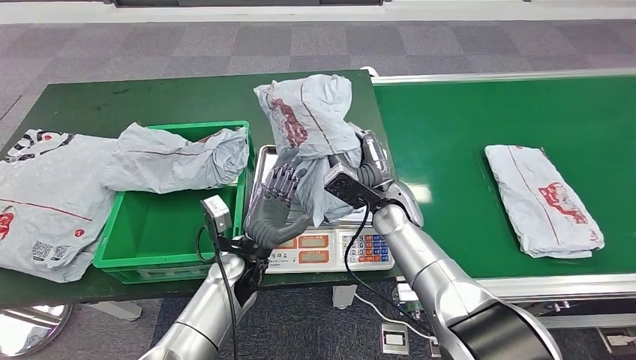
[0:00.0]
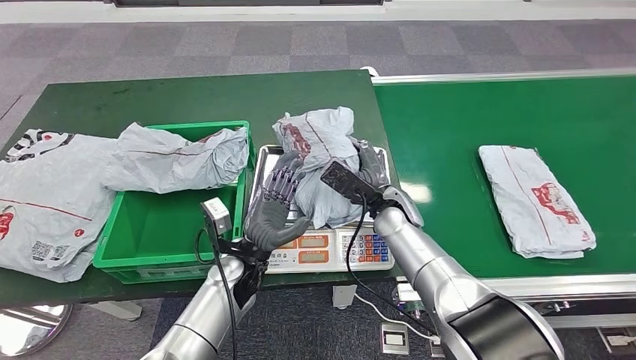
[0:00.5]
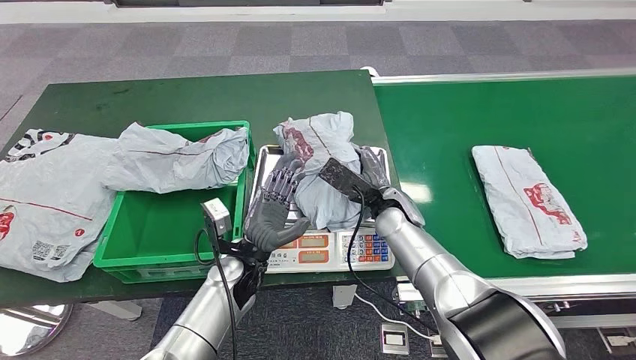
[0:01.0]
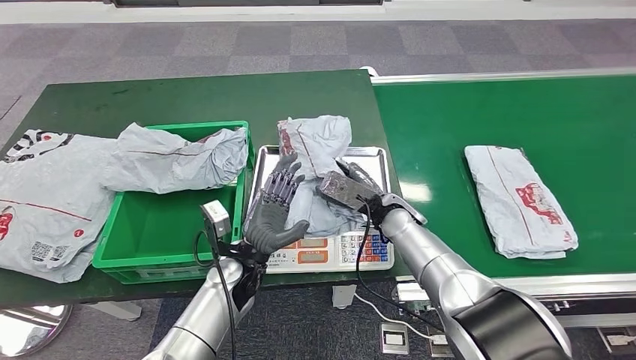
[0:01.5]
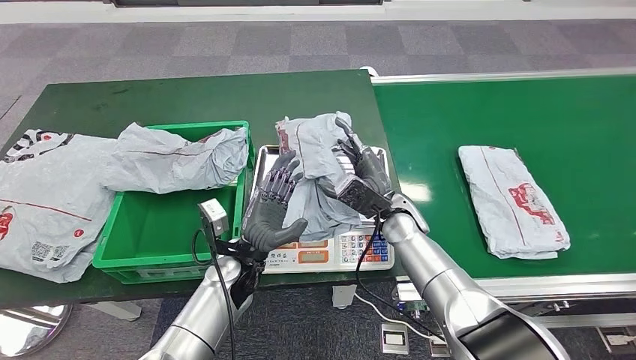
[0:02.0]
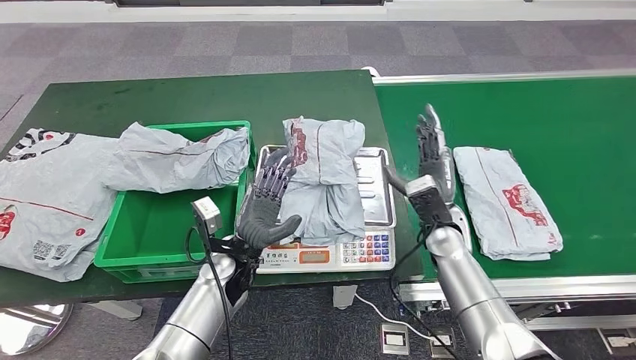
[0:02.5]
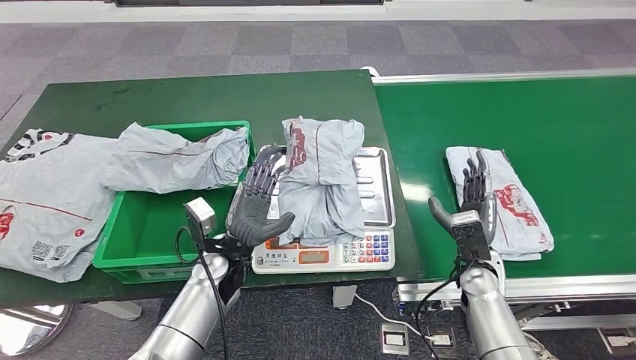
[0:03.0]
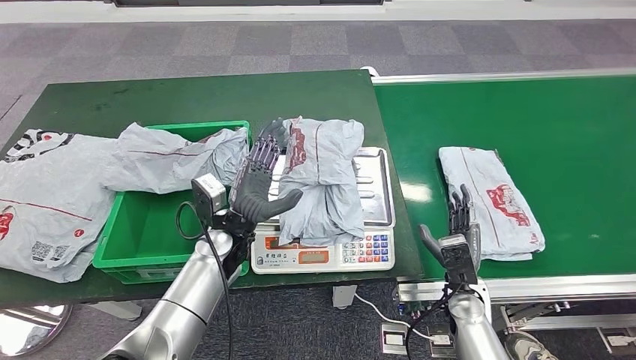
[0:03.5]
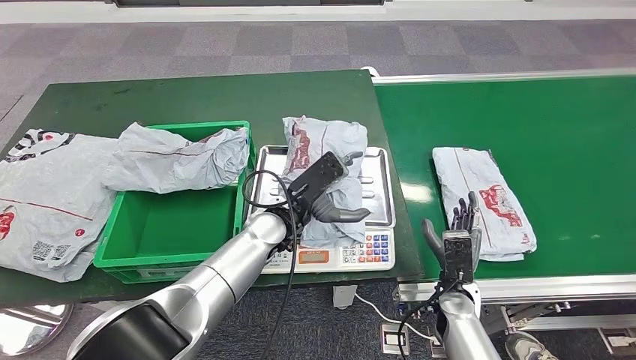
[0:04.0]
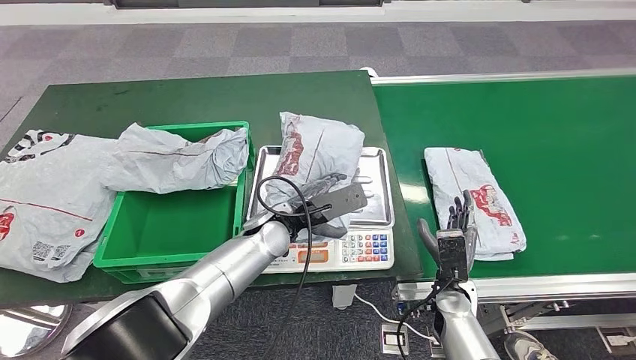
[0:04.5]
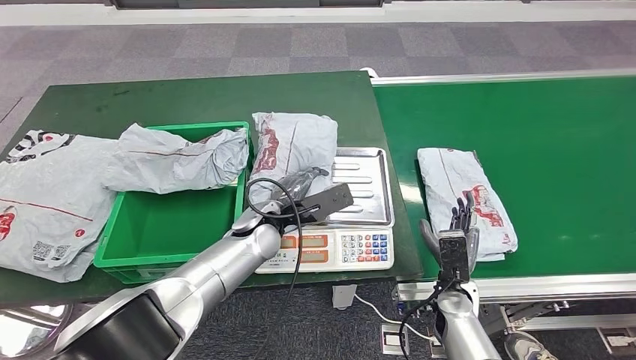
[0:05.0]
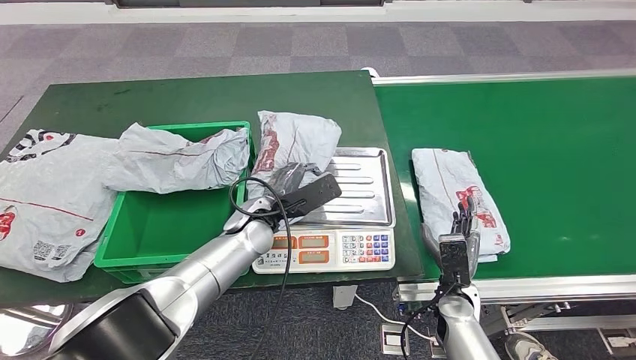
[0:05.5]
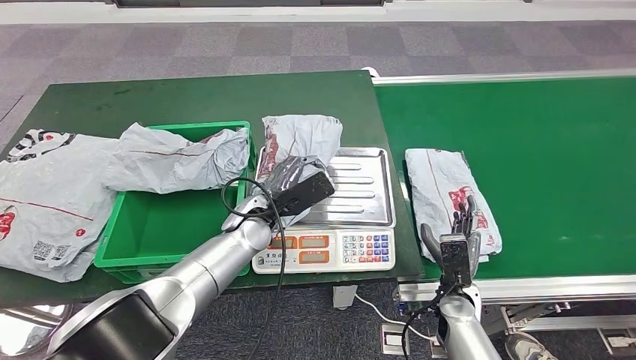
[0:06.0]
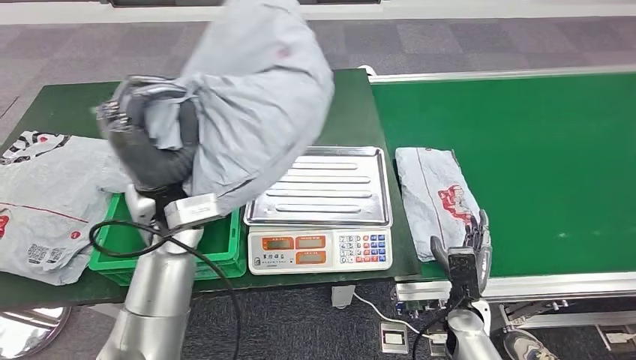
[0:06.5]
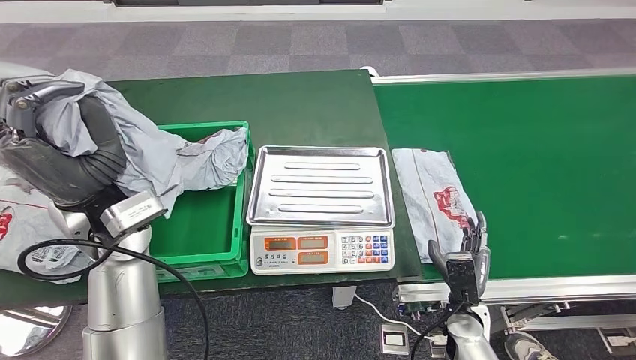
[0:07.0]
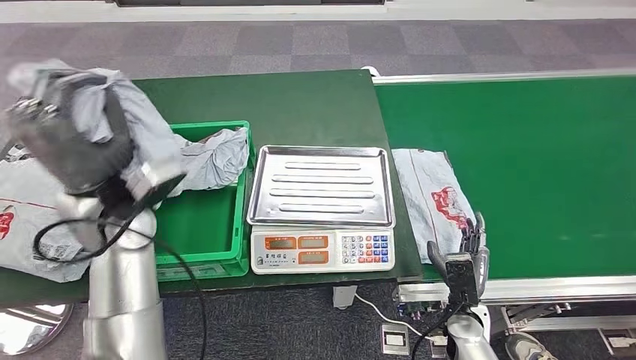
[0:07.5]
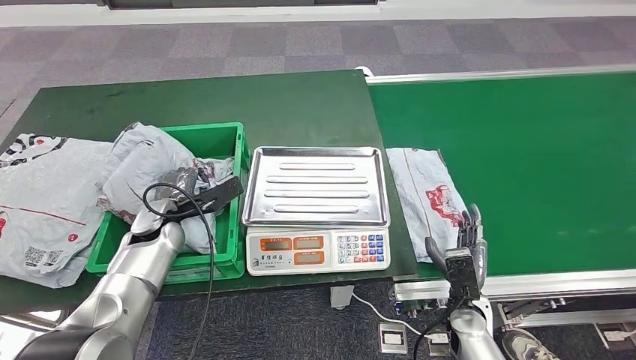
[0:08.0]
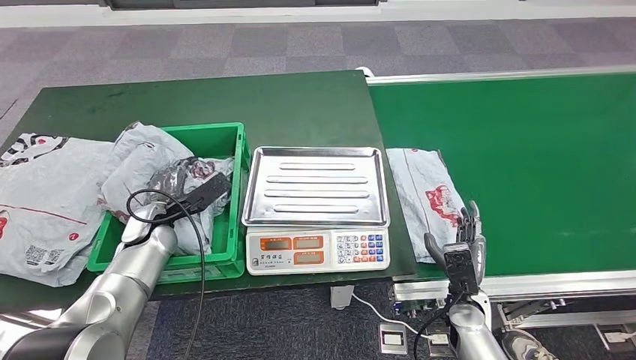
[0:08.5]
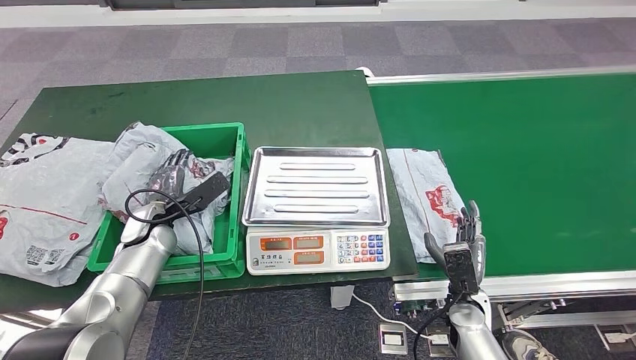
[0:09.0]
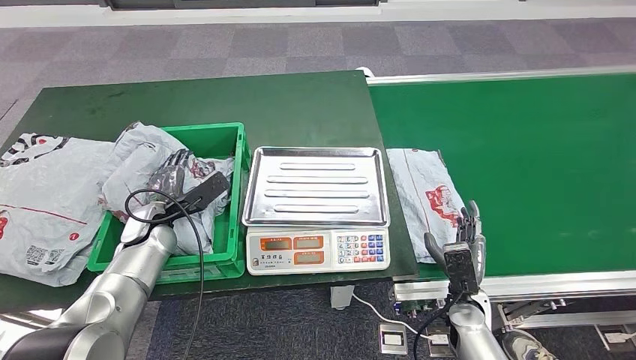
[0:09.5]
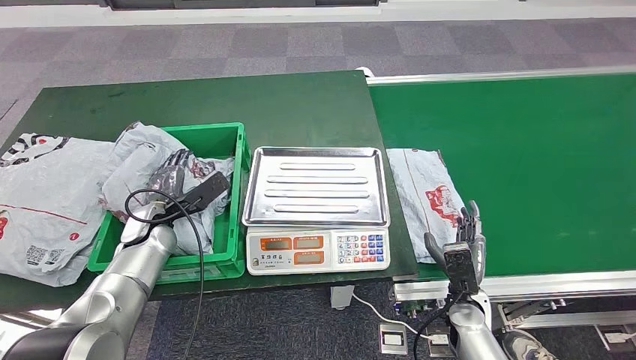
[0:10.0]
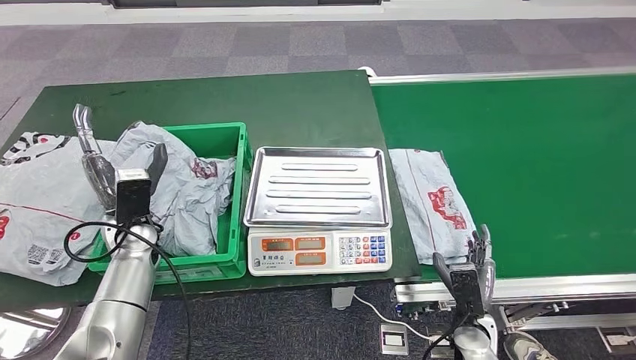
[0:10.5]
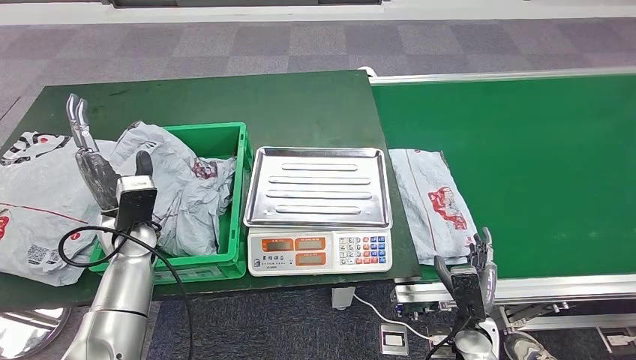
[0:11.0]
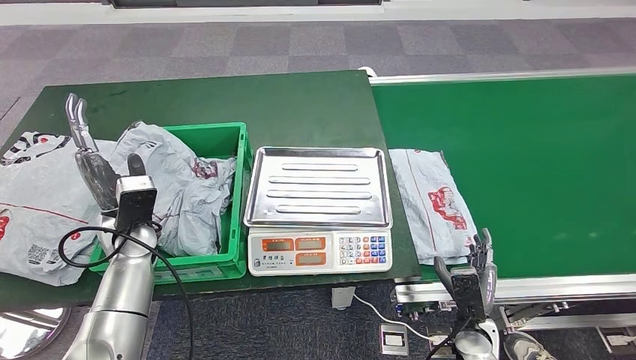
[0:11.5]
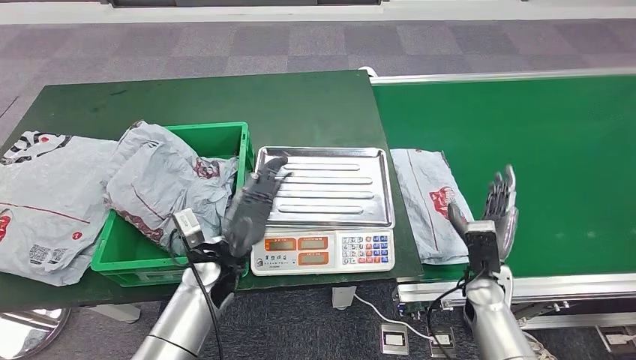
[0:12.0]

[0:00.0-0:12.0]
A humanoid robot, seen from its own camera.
Step, 0:00.0 to 0:03.0: Place the parcel onto the inbound machine.
Step, 0:03.5 to 0:07.5: Pick up the parcel from the inbound machine.
Step, 0:08.0 to 0:10.0: Place the parcel into the delivery box.
0:04.0 to 0:06.0: The left hand ends up approximately 5 cm from where it was.
0:08.0 to 0:10.0: The hands stay close to where they were, moving slightly.

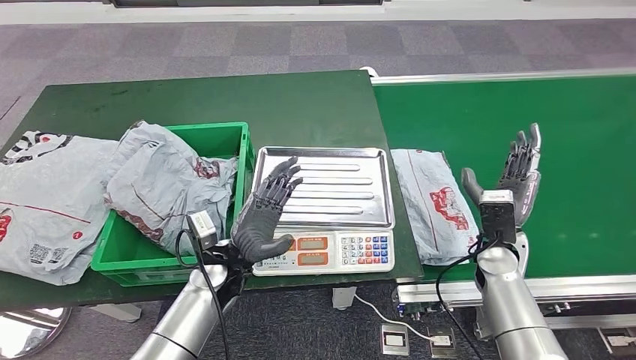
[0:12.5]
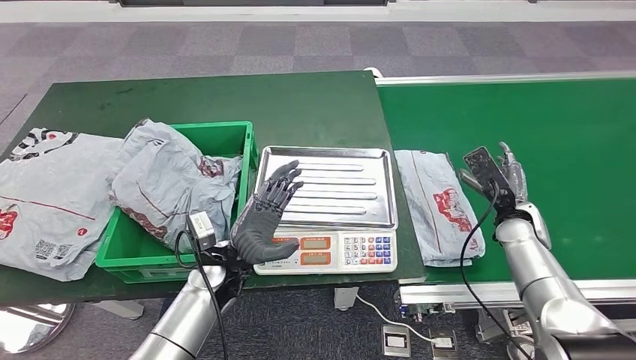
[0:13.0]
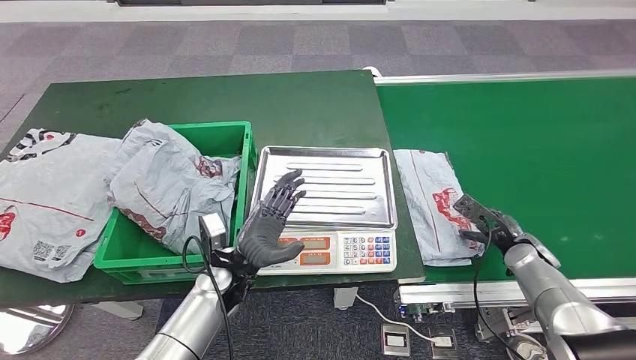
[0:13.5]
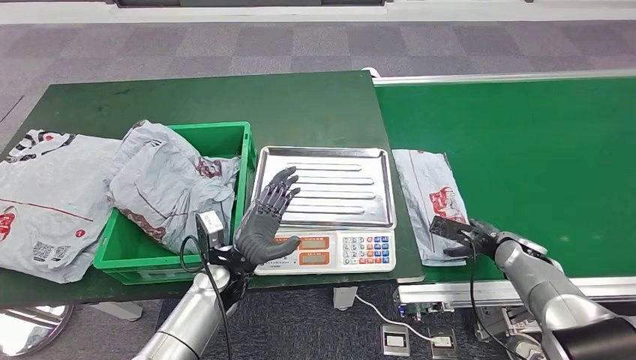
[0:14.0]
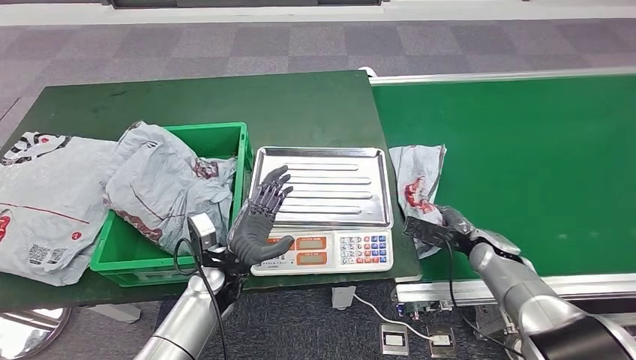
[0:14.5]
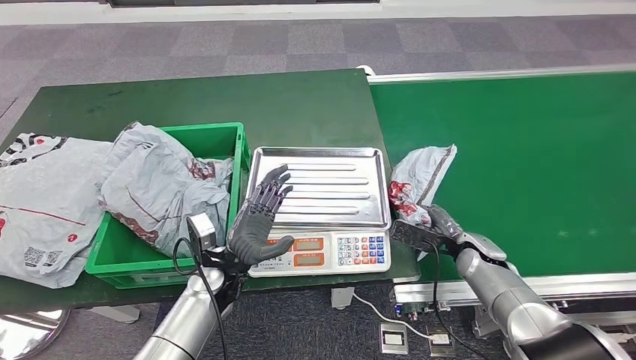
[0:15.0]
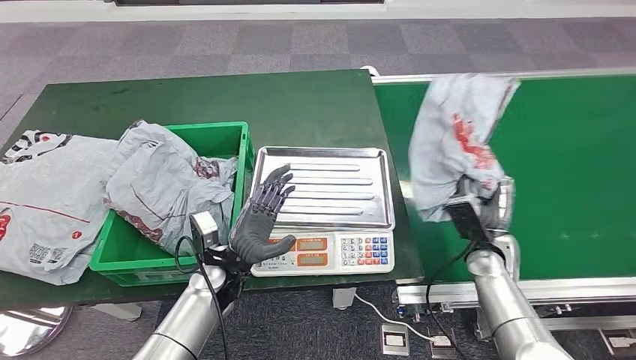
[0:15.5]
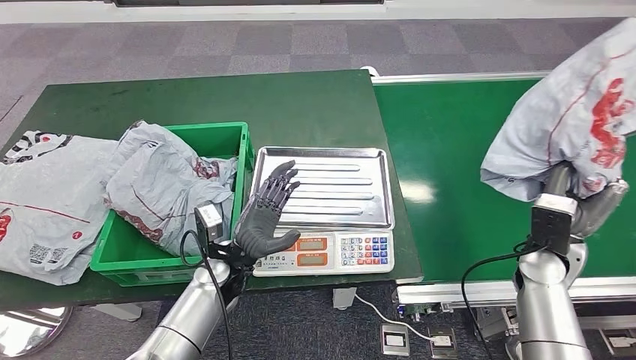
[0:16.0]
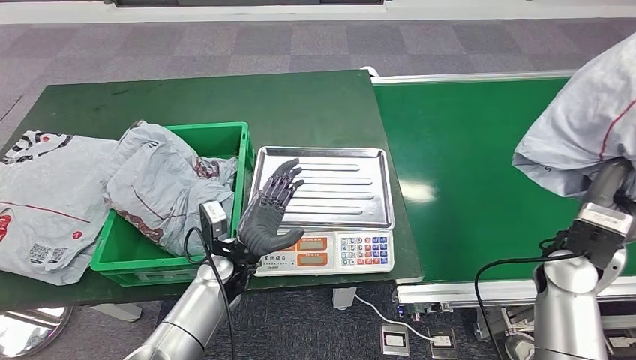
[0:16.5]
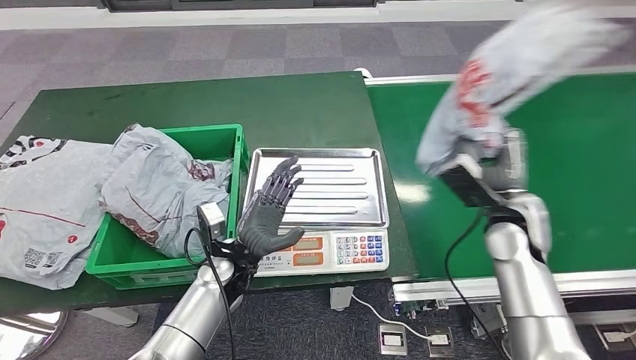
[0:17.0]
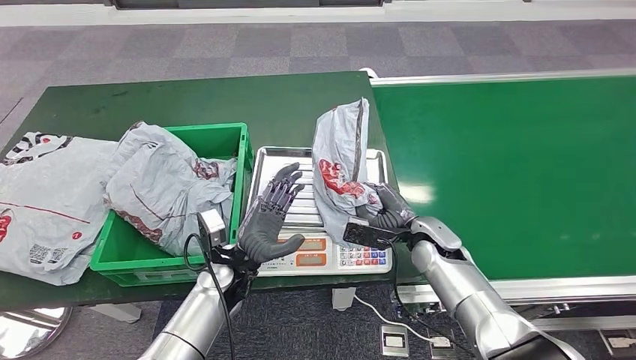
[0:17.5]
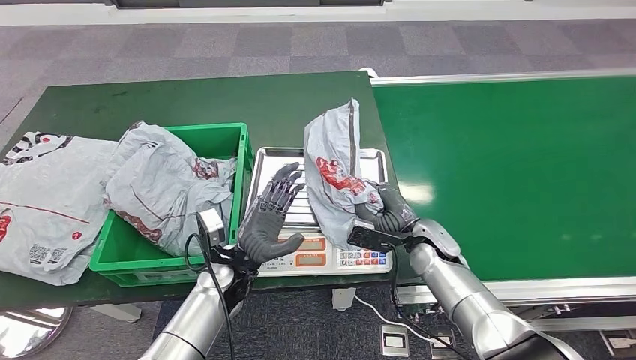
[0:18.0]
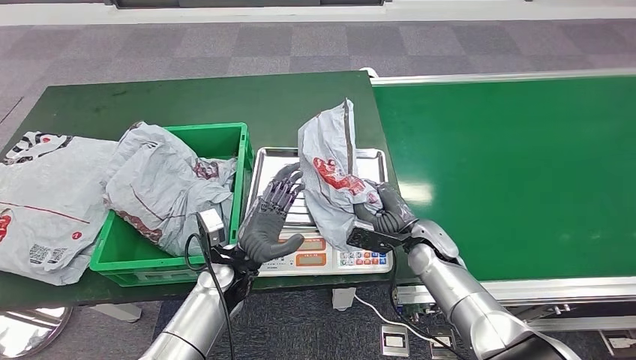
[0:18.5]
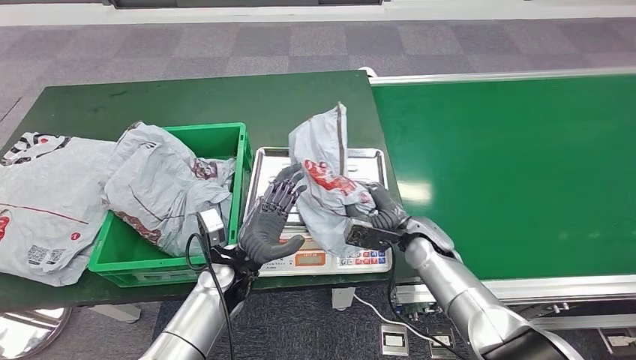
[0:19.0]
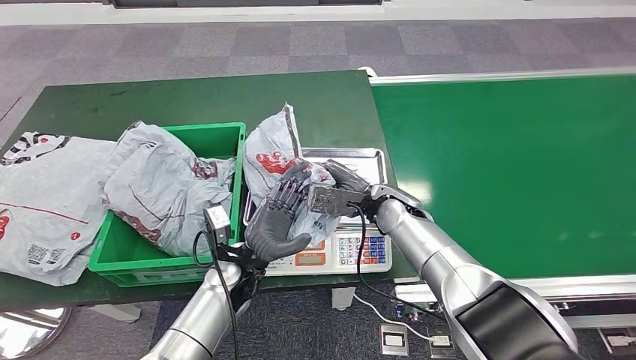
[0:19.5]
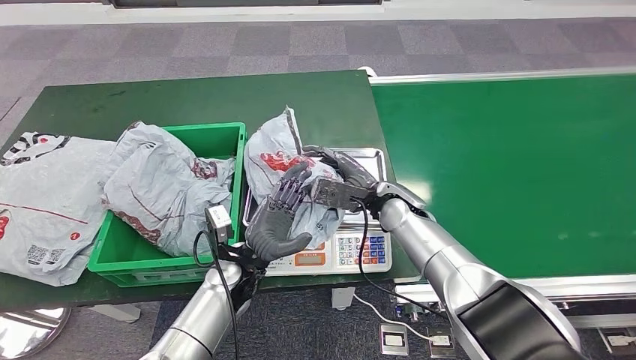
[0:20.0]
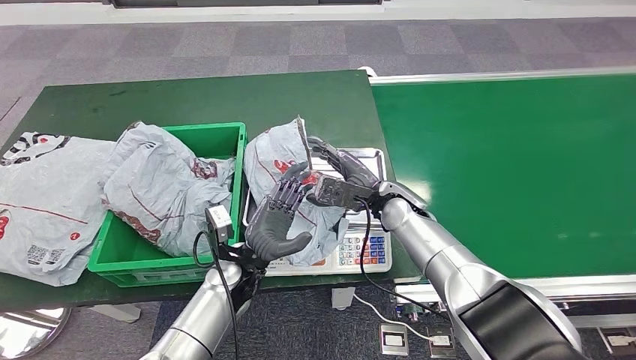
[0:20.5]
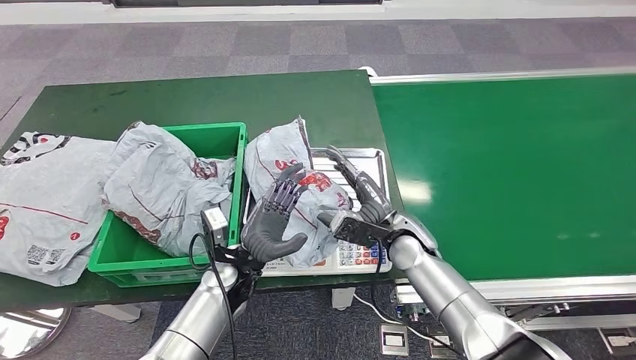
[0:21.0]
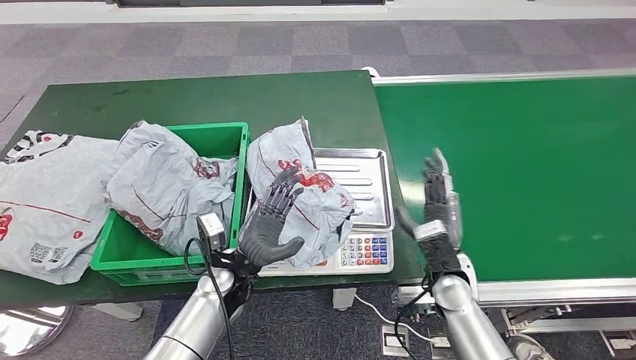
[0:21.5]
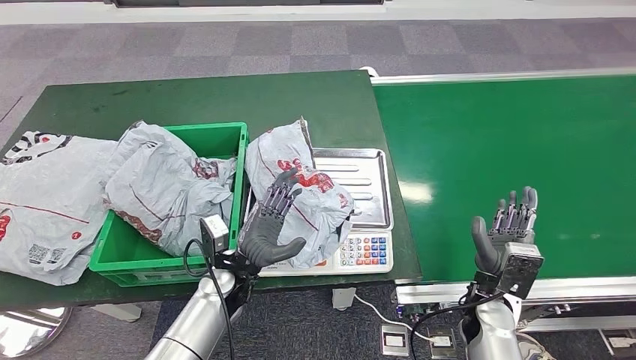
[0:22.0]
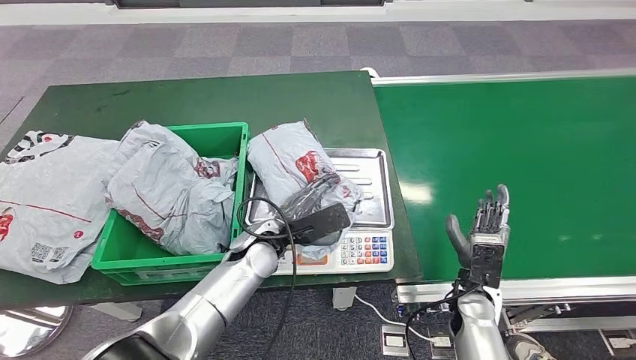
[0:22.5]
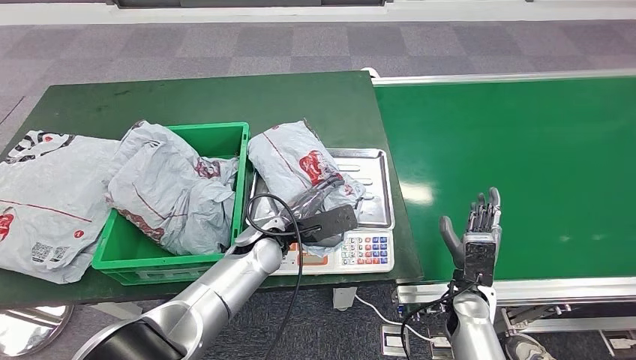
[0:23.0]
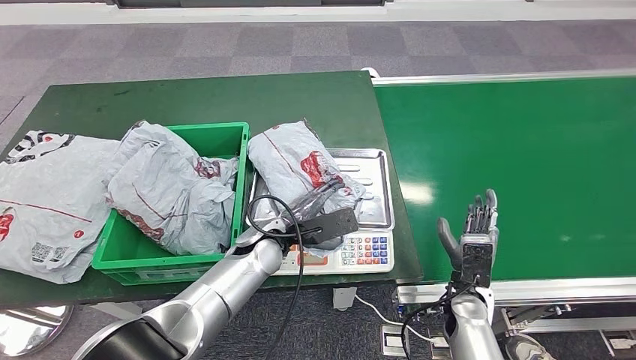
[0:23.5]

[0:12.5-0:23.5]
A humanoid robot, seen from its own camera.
Step, 0:14.0 to 0:15.5: Pick up the parcel from the conveyor belt.
Step, 0:16.5 to 0:22.0: Place the parcel onto the inbound machine.
0:12.5 to 0:14.5: The right hand travels downward by approximately 5 cm, and moves some 10 cm to the right and comes back.
0:18.0 to 0:20.0: The right hand shifts roughly 10 cm to the left and upward.
0:20.0 to 0:21.5: The right hand is displaced backward, to the right and downward by some 15 cm.
0:21.5 to 0:23.5: The right hand moves downward, about 5 cm; the left hand goes about 5 cm to the right.
